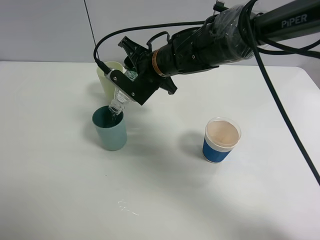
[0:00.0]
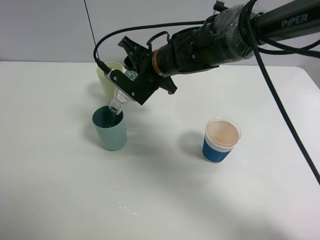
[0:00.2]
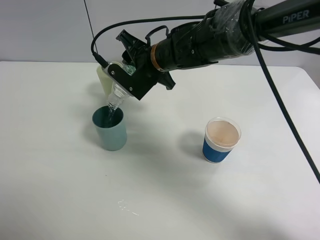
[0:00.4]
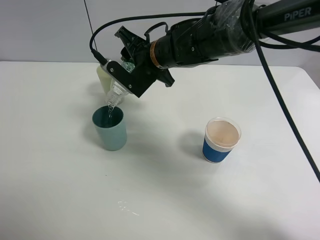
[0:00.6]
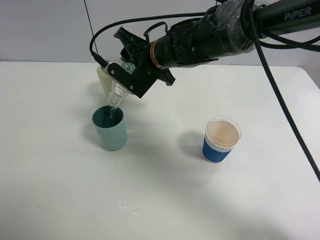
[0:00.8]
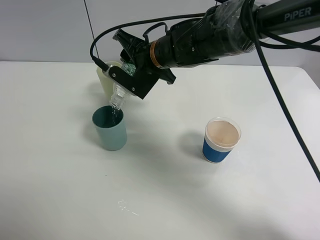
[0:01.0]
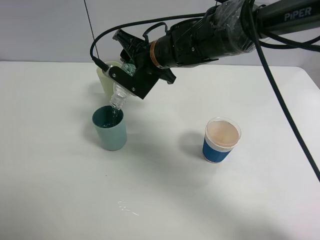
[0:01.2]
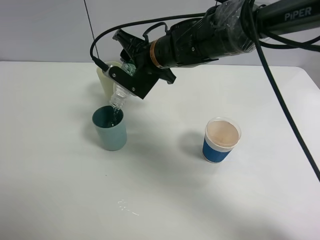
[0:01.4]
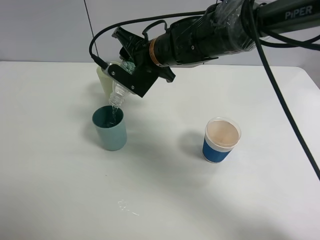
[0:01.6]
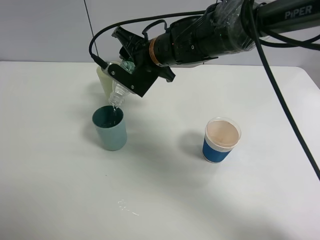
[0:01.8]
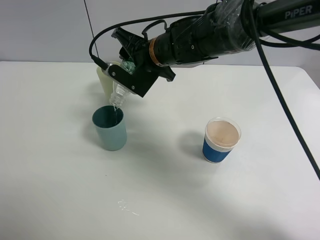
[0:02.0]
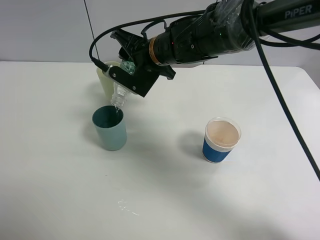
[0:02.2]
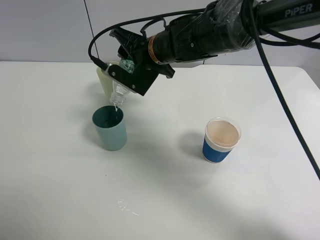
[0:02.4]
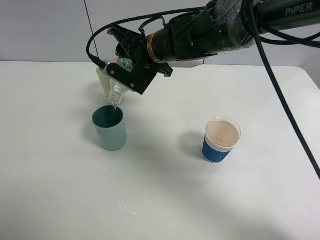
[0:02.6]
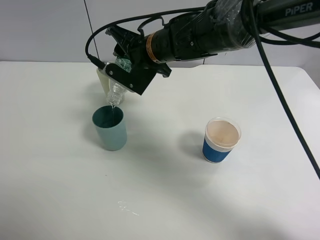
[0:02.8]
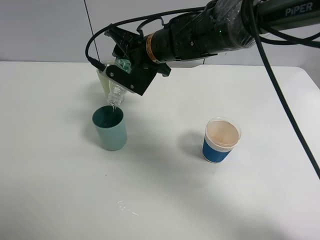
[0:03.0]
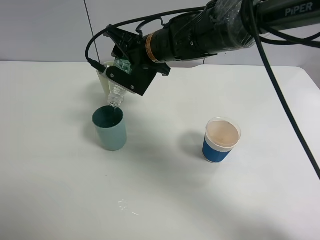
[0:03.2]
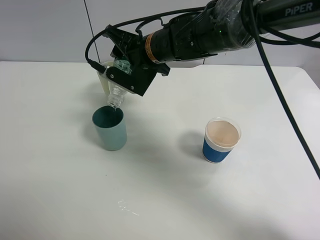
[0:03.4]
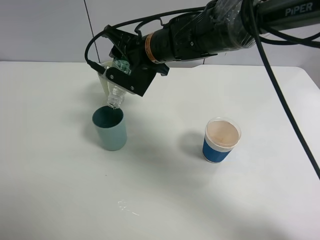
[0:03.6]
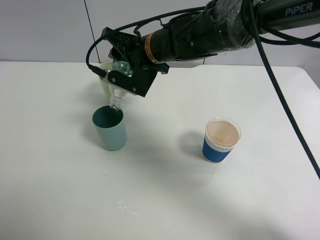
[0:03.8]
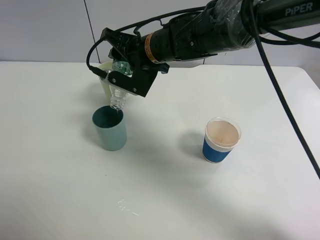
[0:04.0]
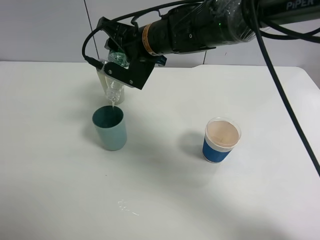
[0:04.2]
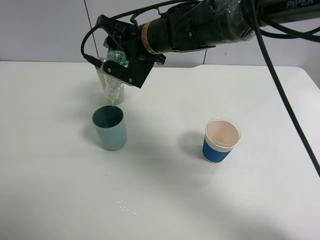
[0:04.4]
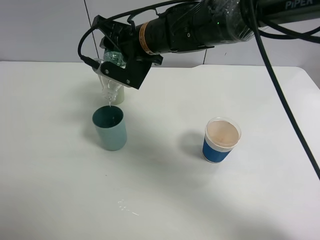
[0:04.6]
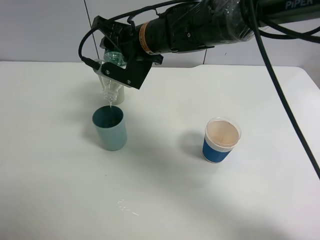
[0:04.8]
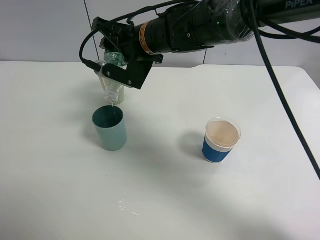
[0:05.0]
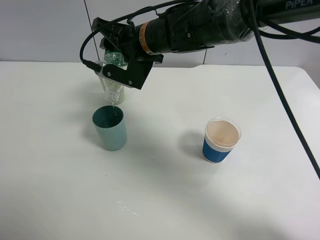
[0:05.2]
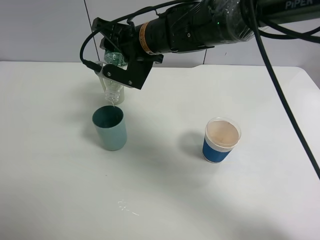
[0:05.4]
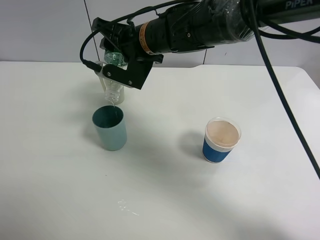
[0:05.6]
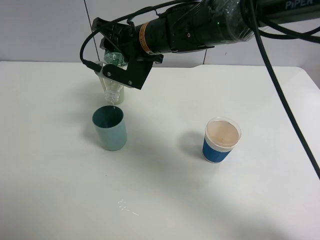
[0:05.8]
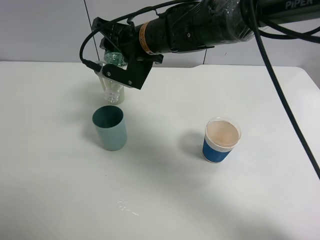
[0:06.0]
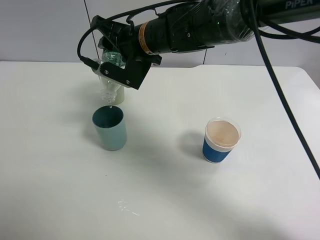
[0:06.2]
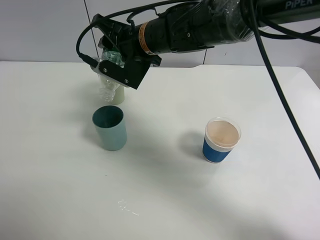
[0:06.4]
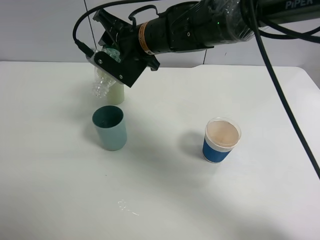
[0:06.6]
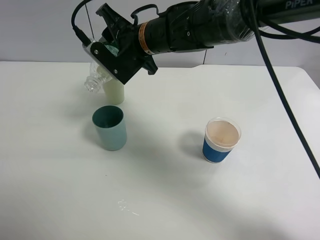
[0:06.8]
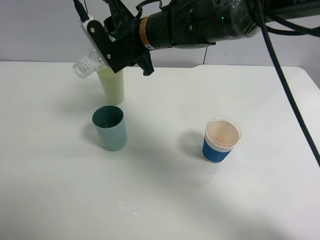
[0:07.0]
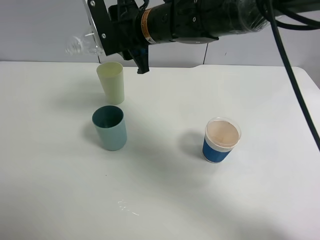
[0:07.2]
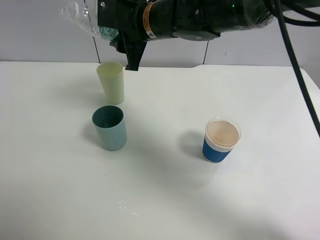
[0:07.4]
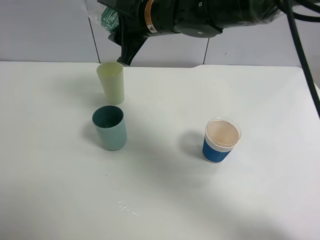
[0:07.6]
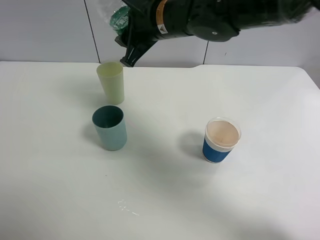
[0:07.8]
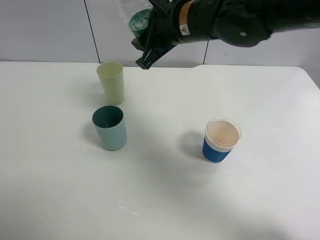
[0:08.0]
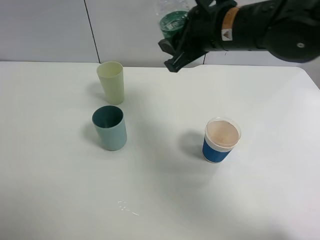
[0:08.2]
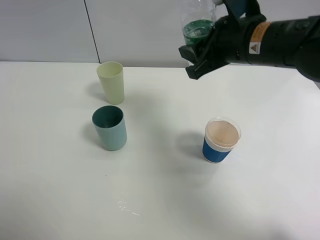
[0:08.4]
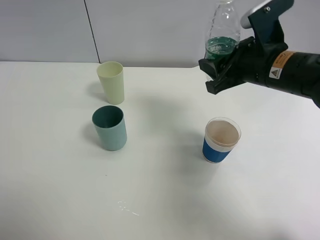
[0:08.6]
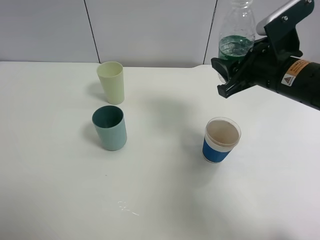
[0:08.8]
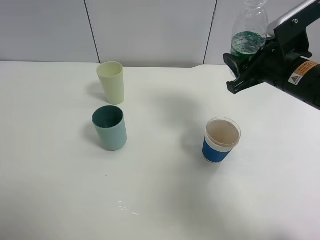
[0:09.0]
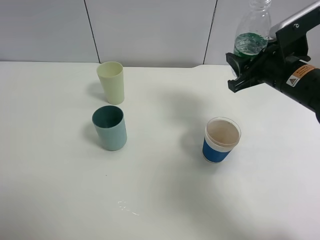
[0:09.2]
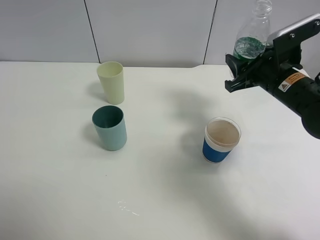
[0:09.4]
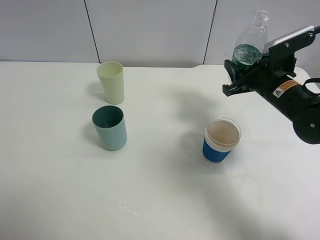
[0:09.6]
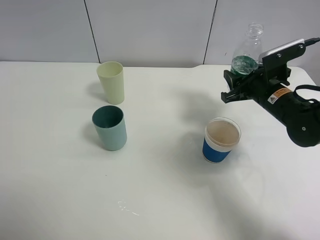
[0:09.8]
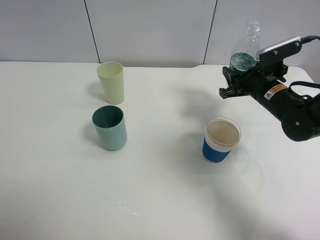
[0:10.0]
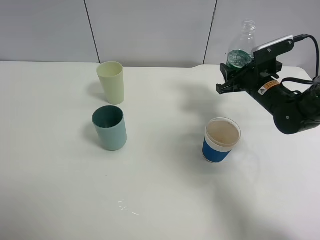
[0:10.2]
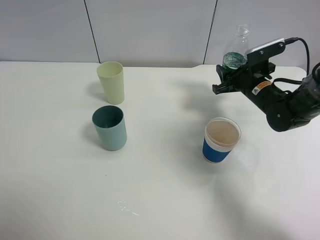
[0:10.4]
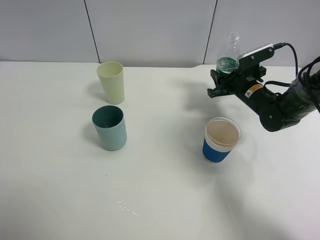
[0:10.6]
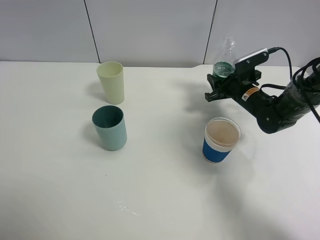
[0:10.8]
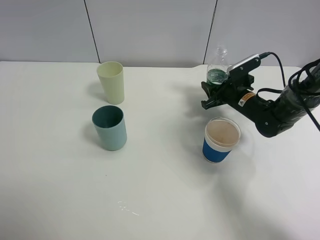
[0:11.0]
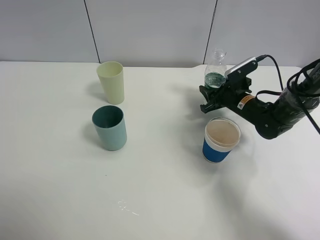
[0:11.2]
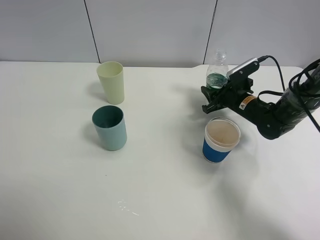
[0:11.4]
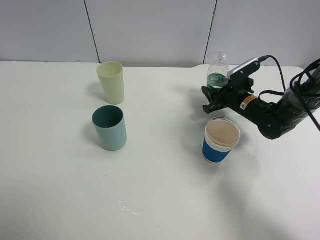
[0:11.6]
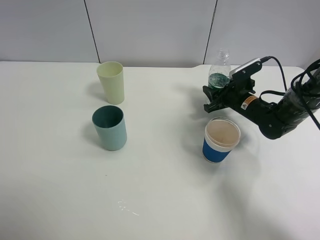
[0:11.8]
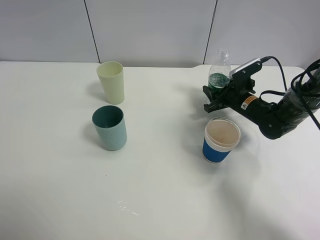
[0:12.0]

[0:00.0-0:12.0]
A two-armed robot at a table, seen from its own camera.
Task of the whole recording: use a clamp to hold the bottle of the drink, pour the beverage into a random cup, then clamp the cup containing the drink and pour the drink into another random cup.
Step, 0:00.0 to 0:06.8: Pour water into the blue plastic cup with right gripper.
0:00.0 to 0:03.0: The grippers stay close to where they were, moving slightly.
0:03.0 to 0:04.4: The grippers move only a little.
0:04.4 to 0:06.0: The two grippers keep their place.
0:07.6 to 0:09.0: The right gripper goes about 25 cm to the right.
0:09.0 to 0:10.4: The right gripper goes about 15 cm downward and forward.
0:10.4 to 0:12.0: The right gripper goes approximately 5 cm downward.

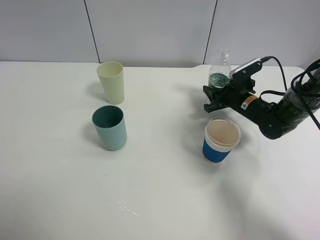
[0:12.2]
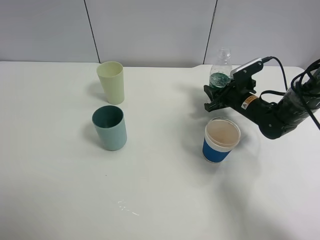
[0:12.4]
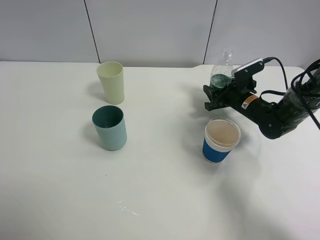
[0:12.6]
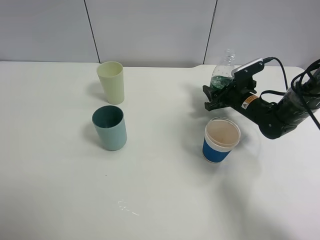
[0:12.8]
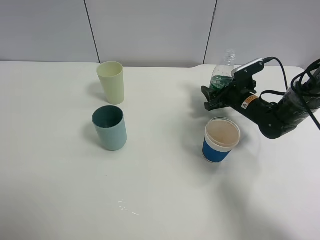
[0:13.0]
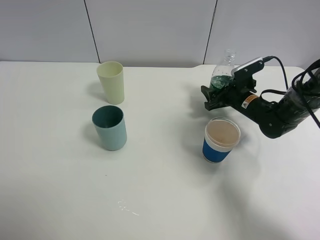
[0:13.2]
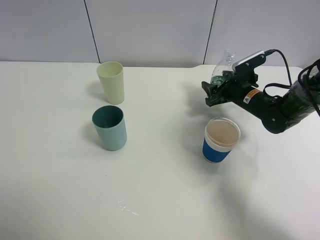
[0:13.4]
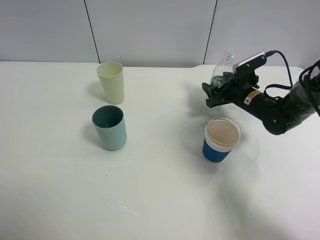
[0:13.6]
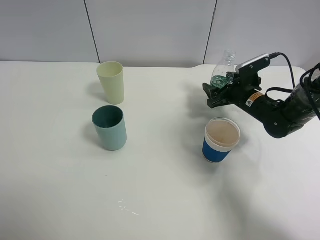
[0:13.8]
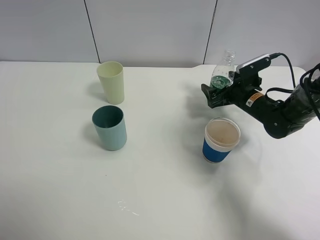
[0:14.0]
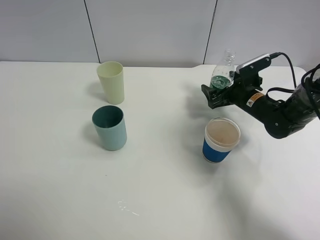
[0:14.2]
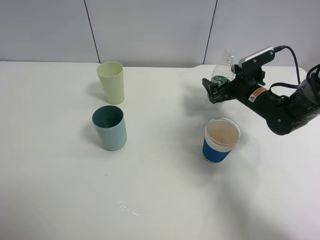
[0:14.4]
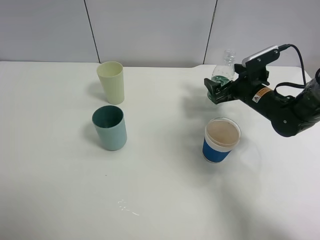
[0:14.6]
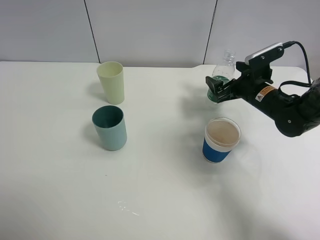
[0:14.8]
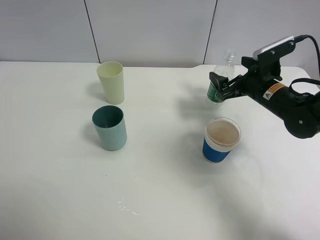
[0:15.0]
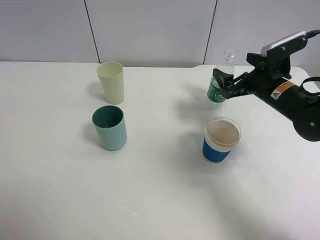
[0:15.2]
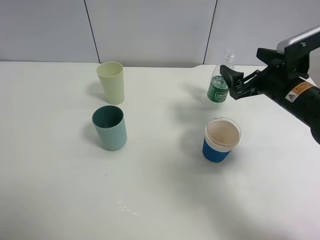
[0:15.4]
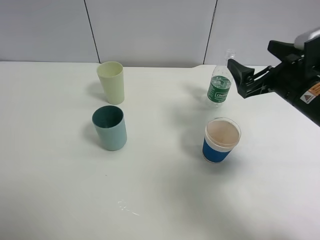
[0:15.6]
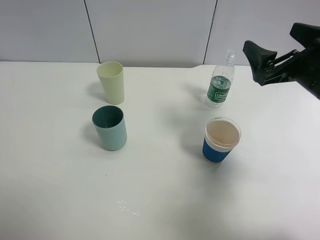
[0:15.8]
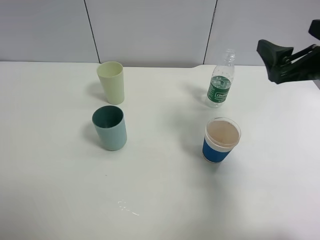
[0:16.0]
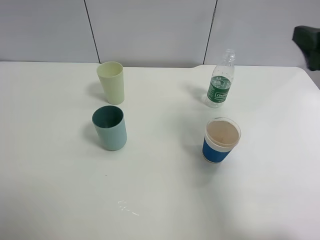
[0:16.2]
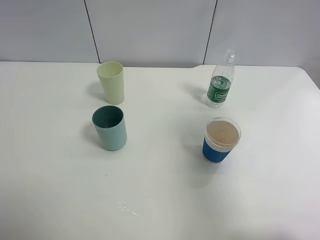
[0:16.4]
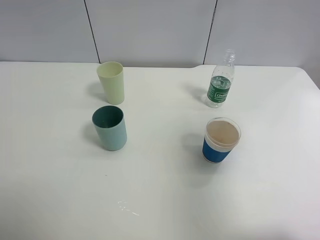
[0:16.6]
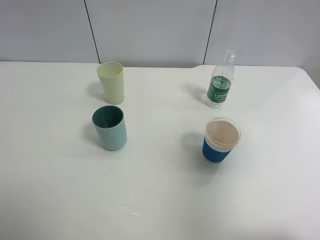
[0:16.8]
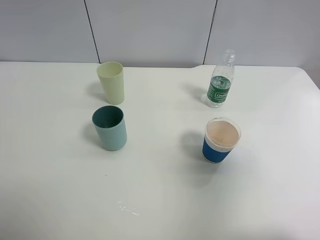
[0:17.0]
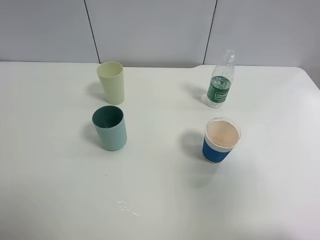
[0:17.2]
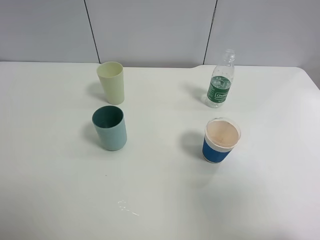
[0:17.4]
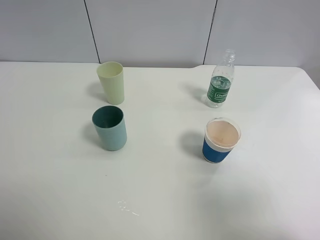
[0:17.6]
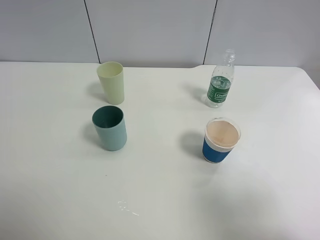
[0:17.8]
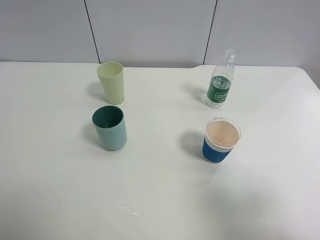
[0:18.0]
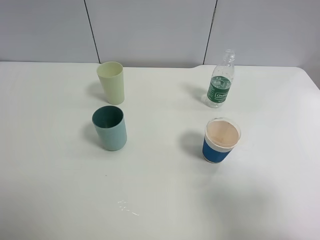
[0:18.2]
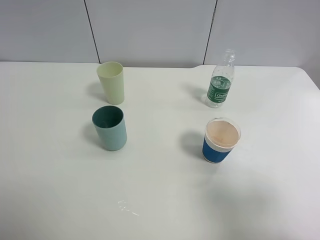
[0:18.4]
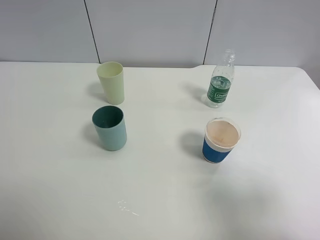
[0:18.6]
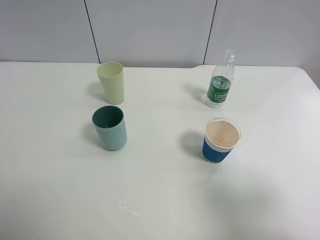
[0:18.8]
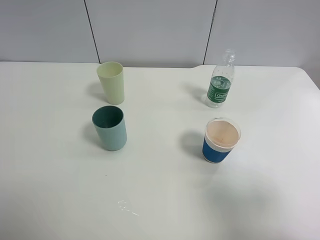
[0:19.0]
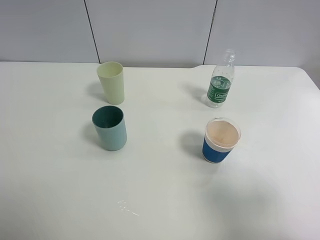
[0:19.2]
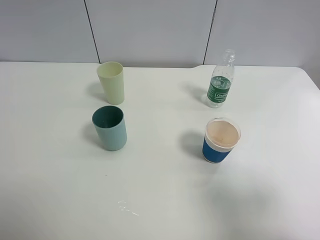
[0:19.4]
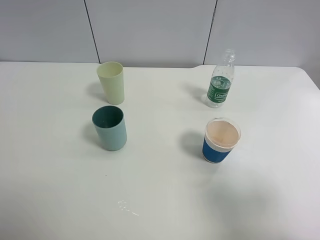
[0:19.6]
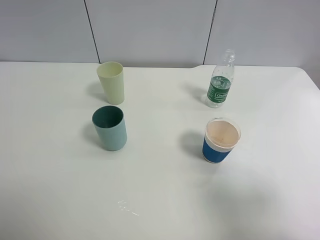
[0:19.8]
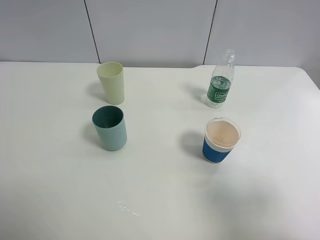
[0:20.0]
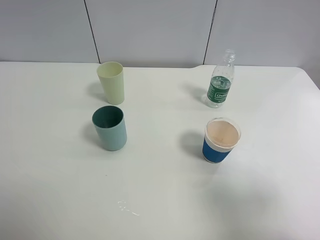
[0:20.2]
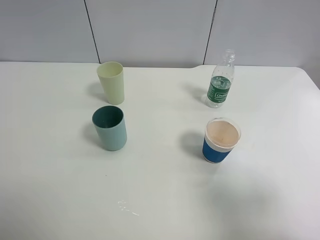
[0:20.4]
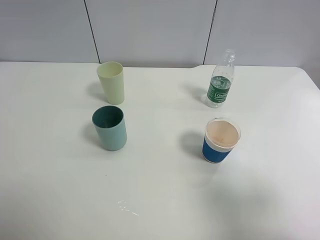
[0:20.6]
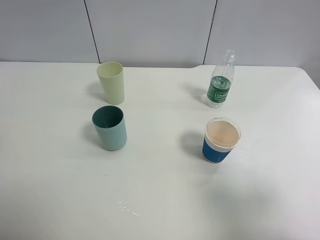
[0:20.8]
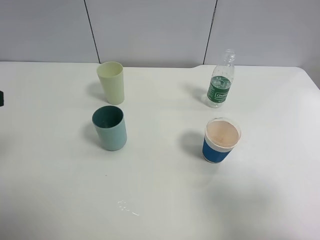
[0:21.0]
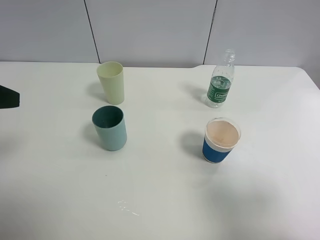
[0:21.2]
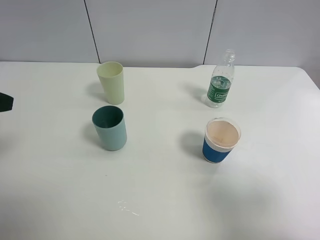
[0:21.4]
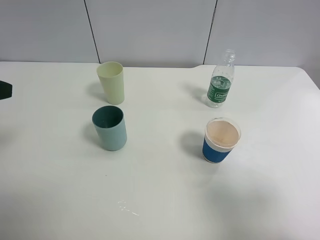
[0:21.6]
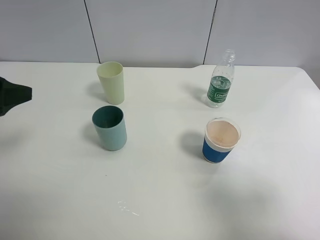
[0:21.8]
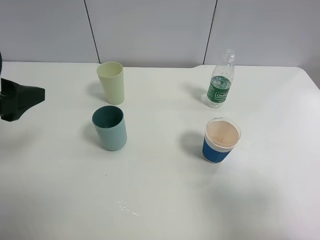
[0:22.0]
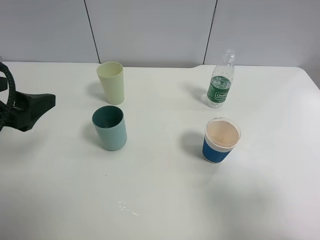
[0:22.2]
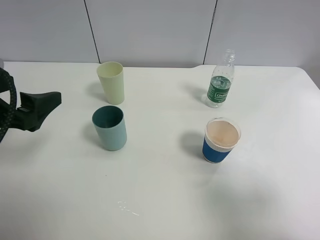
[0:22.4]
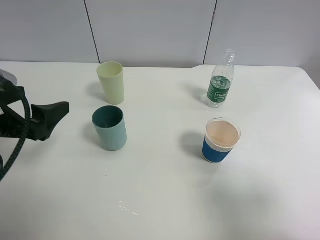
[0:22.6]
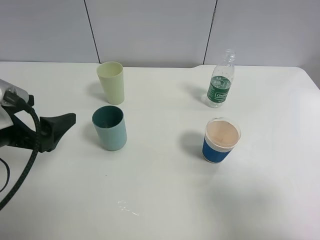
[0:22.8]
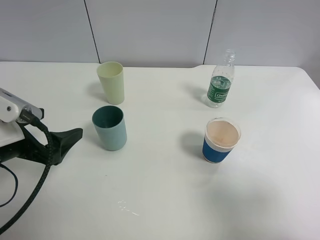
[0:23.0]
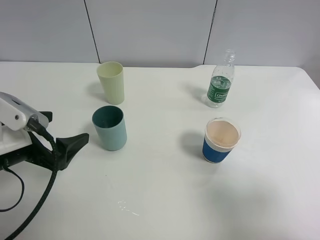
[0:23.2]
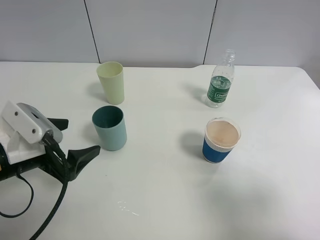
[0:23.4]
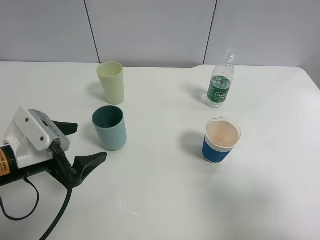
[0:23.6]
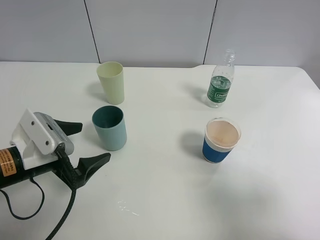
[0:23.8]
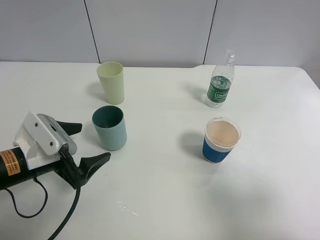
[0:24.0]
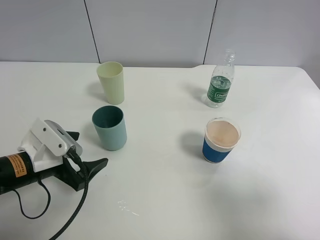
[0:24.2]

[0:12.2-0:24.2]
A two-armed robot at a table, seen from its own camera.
Task of the whole recording: use a clamp to hold the bottle of the drink, pour the beverage into a random cup, then clamp the cup containing the drink and pour the drink into another random cup.
0:12.2 to 0:13.8: The right gripper opens.
0:13.8 to 0:15.2: The right gripper heads upward and backward, covering approximately 10 cm.
0:15.2 to 0:16.6: The right gripper travels upward and backward by roughly 30 cm.
0:16.6 to 0:18.2: The right gripper heads downward and backward, covering roughly 15 cm.
0:18.2 to 0:19.8: The two grippers keep their place.
0:19.8 to 0:21.2: The left gripper travels forward by roughly 15 cm.
0:21.2 to 0:22.6: The left gripper heads downward, covering approximately 10 cm.
0:22.6 to 0:24.2: The left gripper moves downward, about 10 cm.
